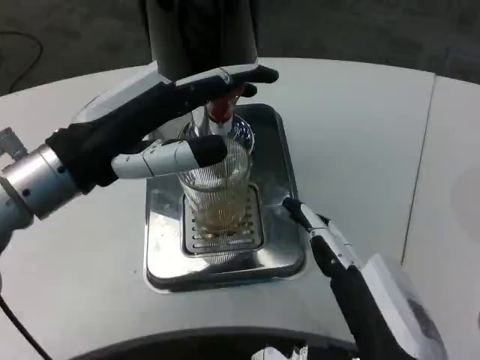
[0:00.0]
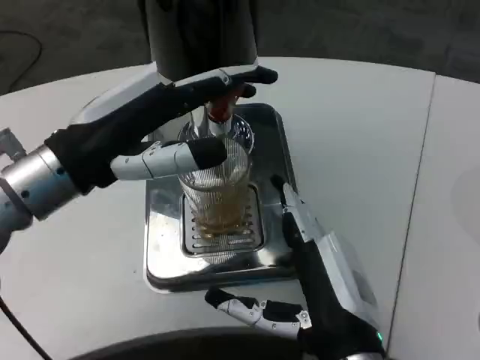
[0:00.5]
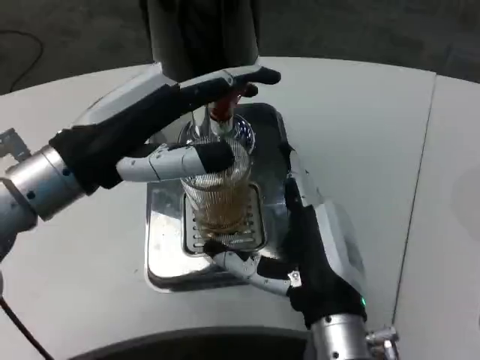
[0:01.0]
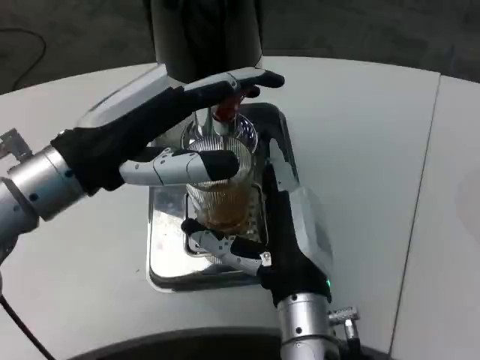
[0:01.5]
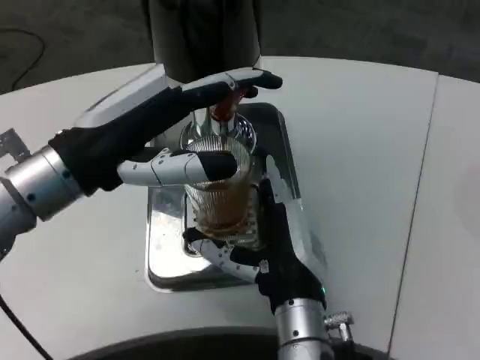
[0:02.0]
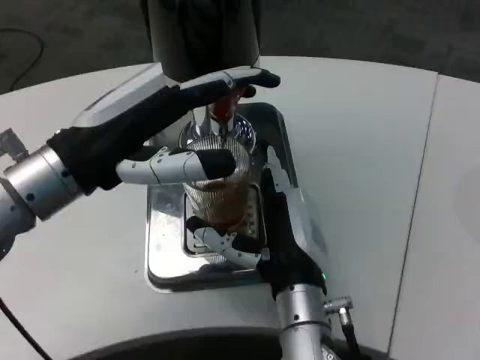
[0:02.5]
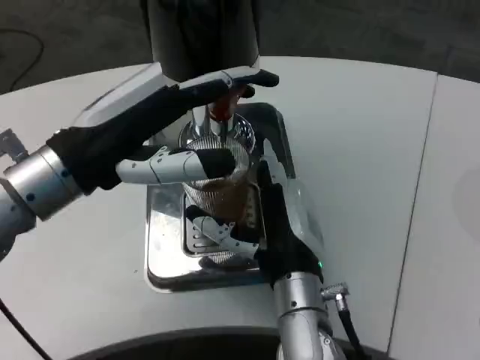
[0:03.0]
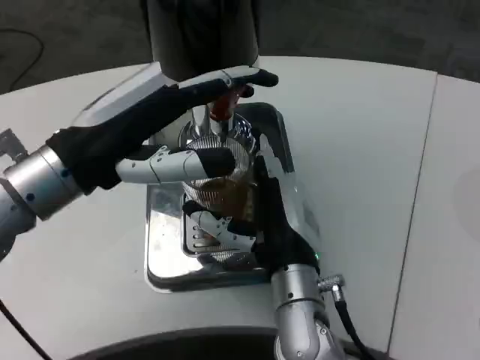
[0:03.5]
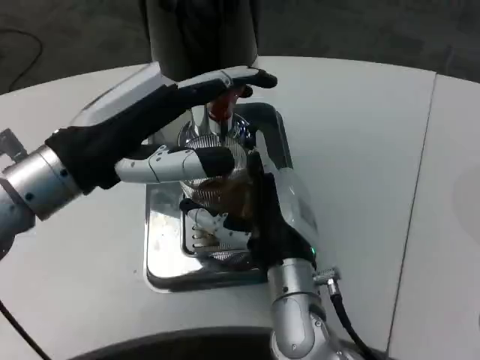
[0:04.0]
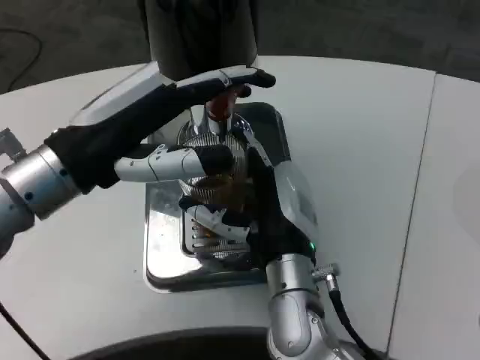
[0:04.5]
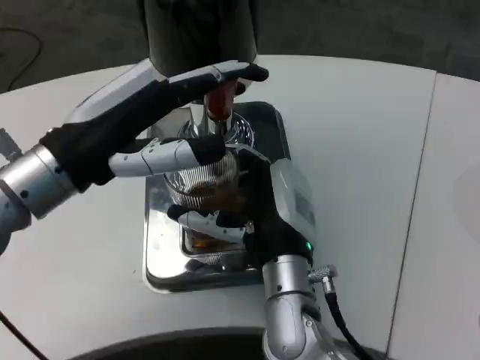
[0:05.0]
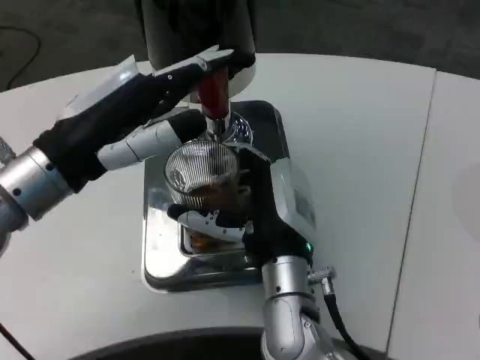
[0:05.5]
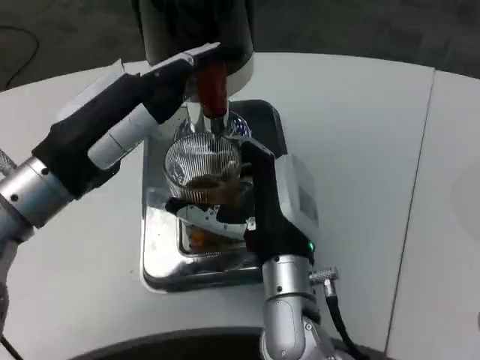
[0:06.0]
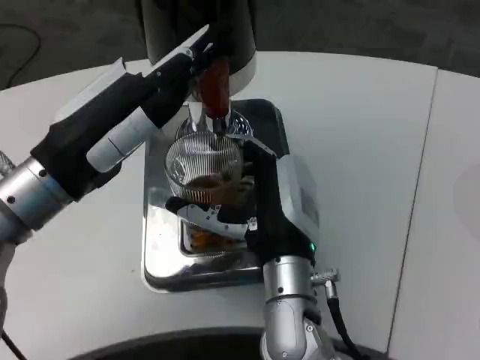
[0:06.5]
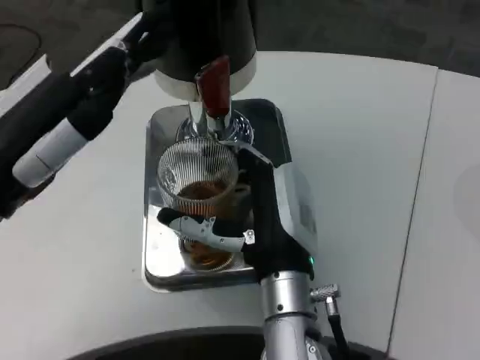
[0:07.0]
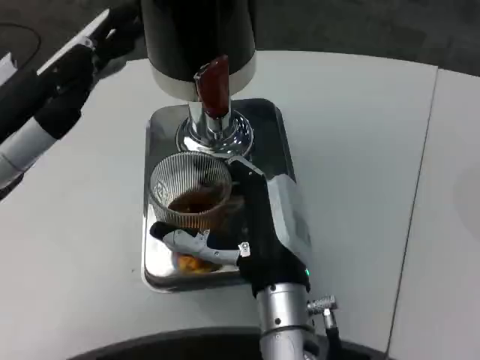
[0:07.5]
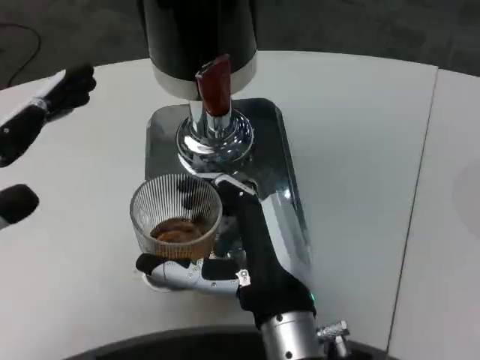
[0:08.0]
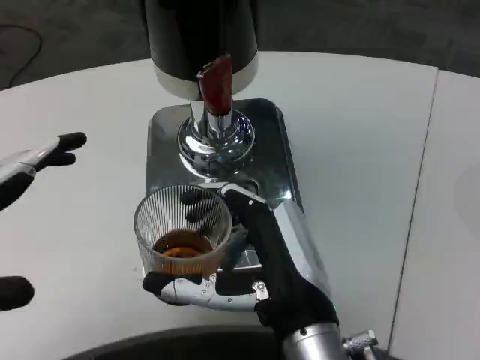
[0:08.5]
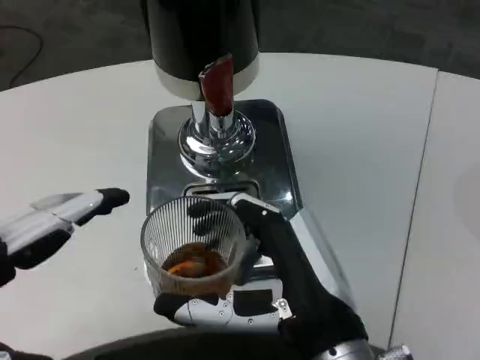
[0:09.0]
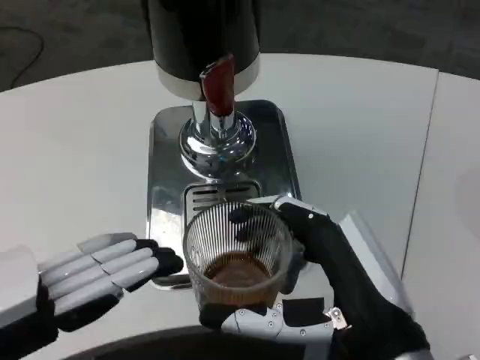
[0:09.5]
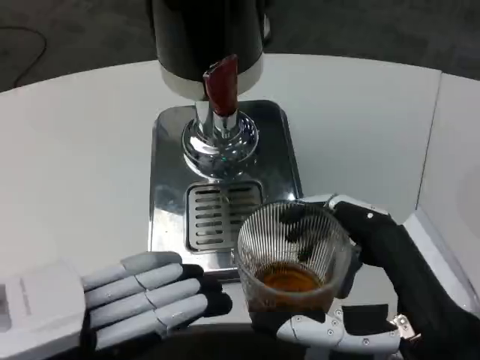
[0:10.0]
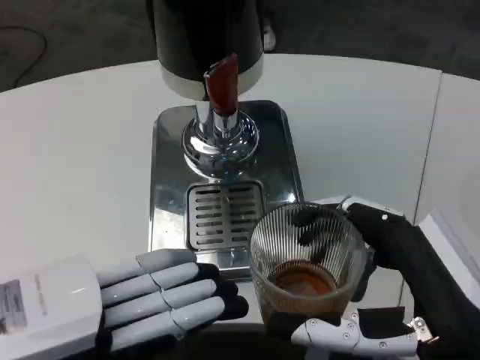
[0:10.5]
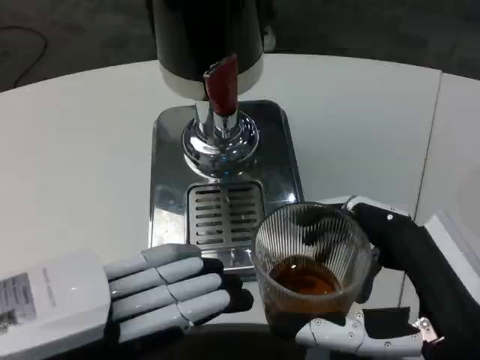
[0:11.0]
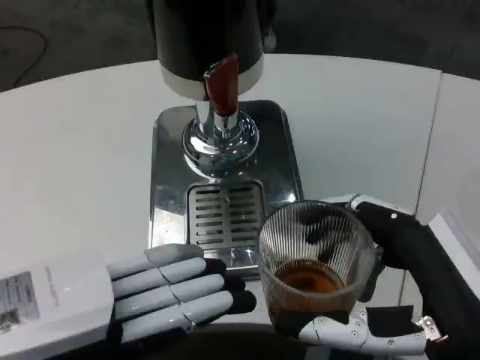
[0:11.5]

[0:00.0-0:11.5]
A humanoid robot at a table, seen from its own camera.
Task of the whole recording: Grasp the cup under the faucet to collect the drink, then remove the cup.
0:00.0 to 0:02.0: The right hand shifts approximately 15 cm forward and to the left.
0:02.0 to 0:04.0: The hands stay close to where they were, moving slightly.
0:06.0 to 0:07.5: The left hand goes some 10 cm backward and to the left.
0:07.5 to 0:09.5: The left hand moves backward, some 10 cm; the right hand is displaced backward and to the right by about 15 cm.
0:09.5 to 0:11.5: The right hand shifts by roughly 5 cm.

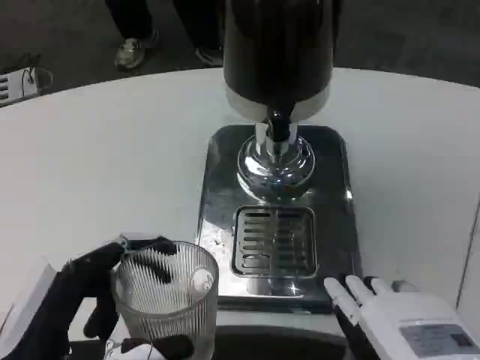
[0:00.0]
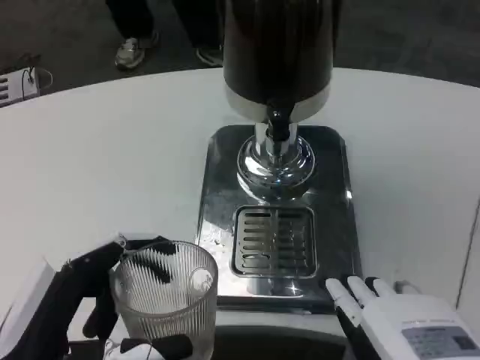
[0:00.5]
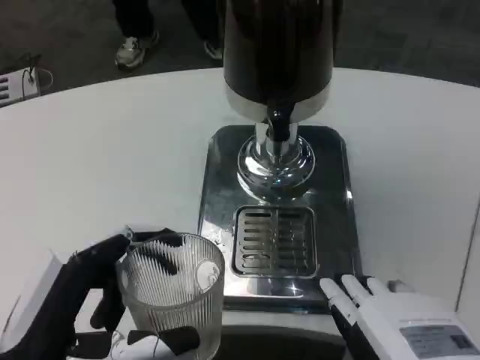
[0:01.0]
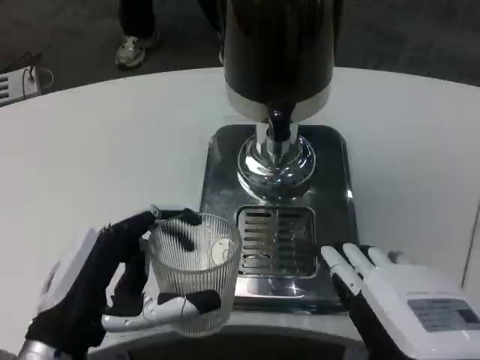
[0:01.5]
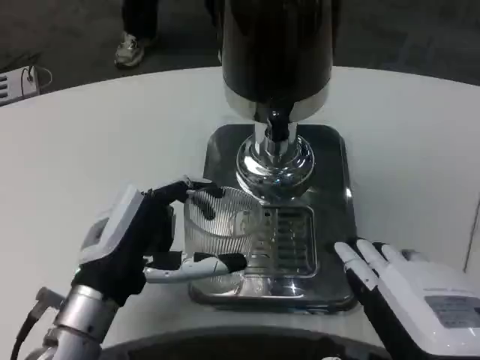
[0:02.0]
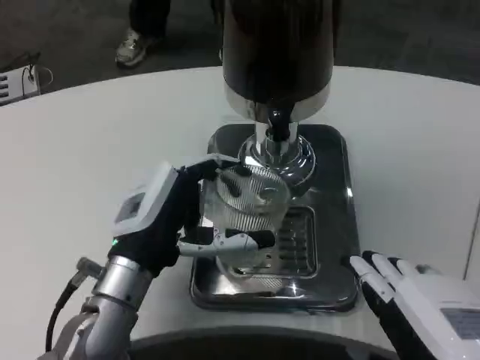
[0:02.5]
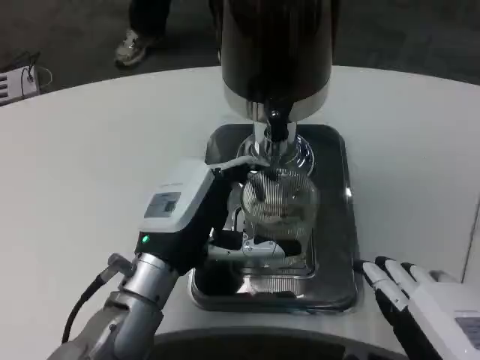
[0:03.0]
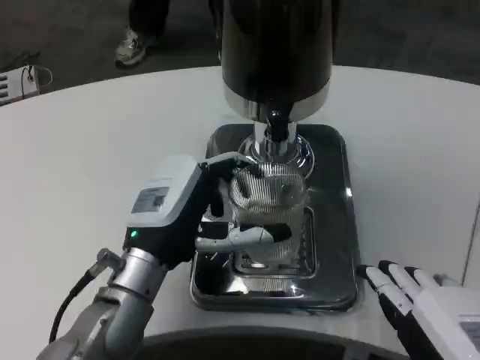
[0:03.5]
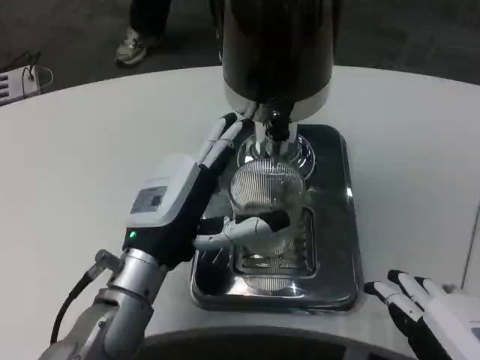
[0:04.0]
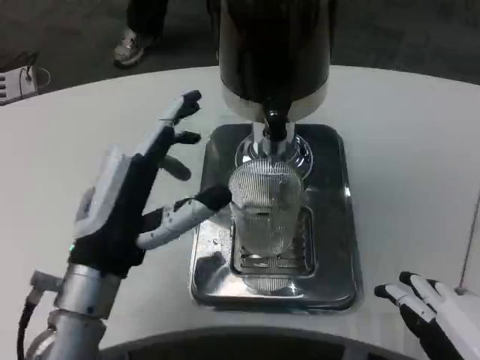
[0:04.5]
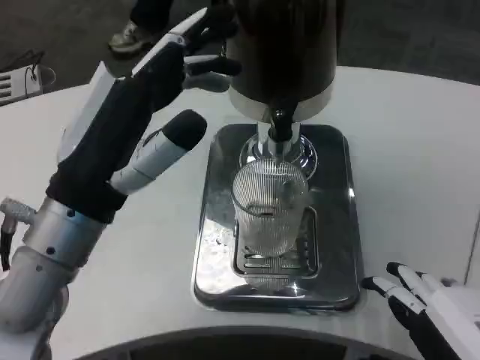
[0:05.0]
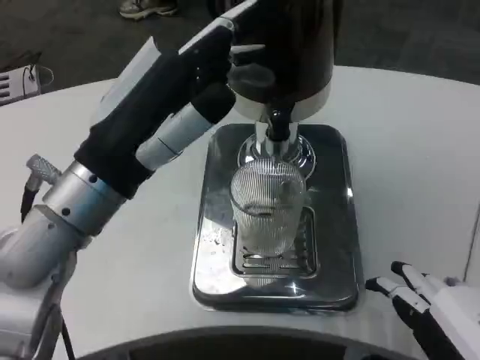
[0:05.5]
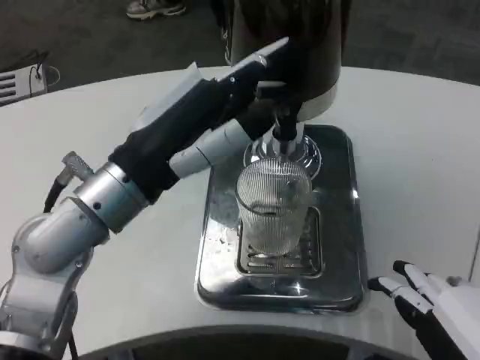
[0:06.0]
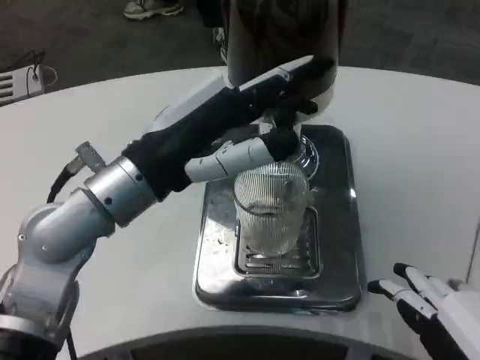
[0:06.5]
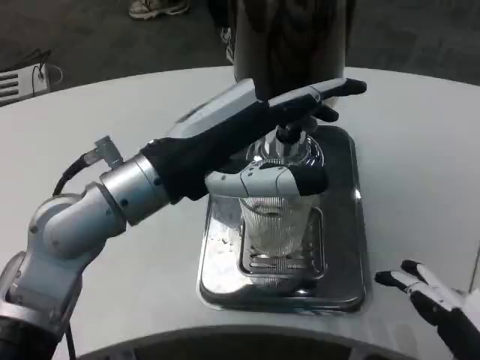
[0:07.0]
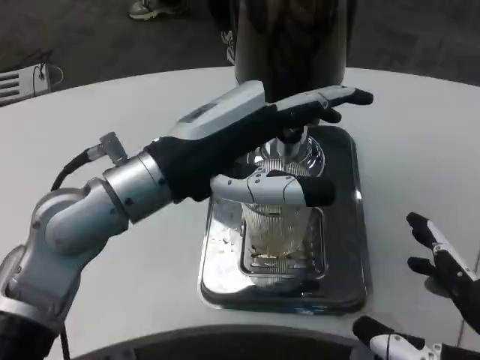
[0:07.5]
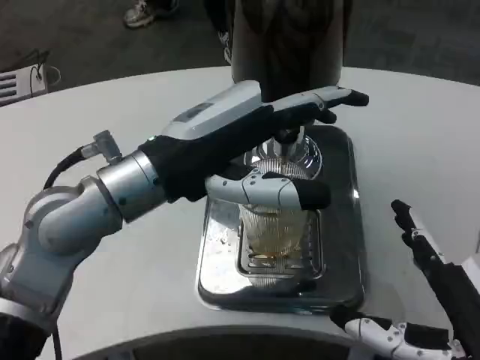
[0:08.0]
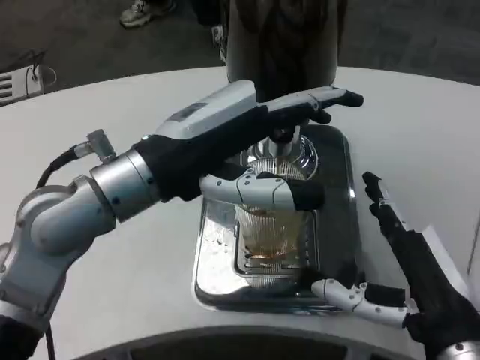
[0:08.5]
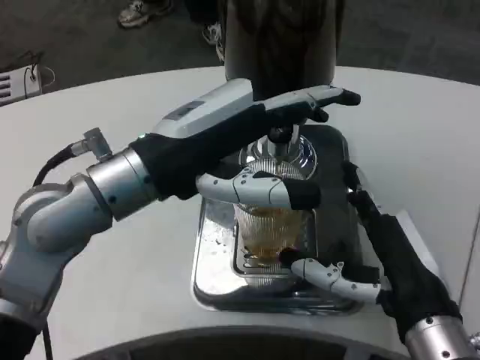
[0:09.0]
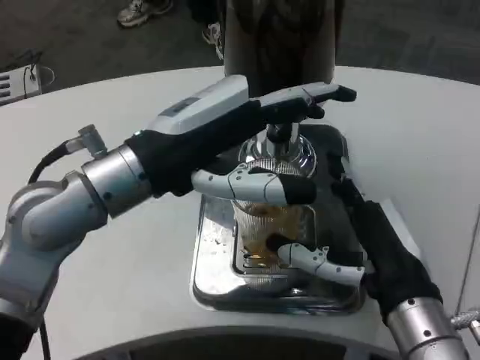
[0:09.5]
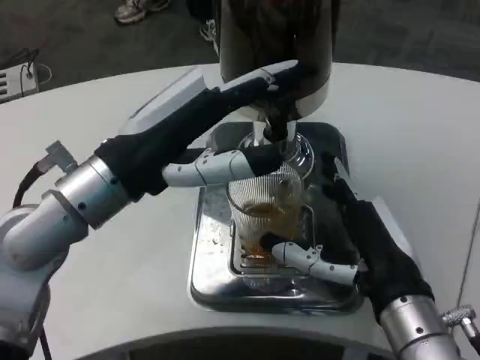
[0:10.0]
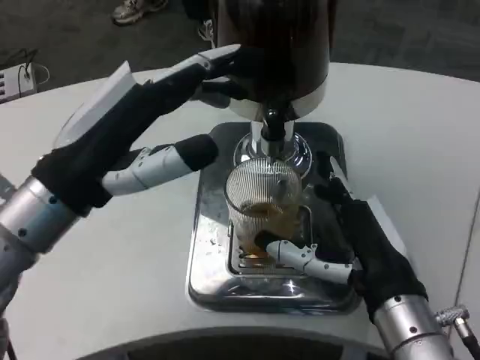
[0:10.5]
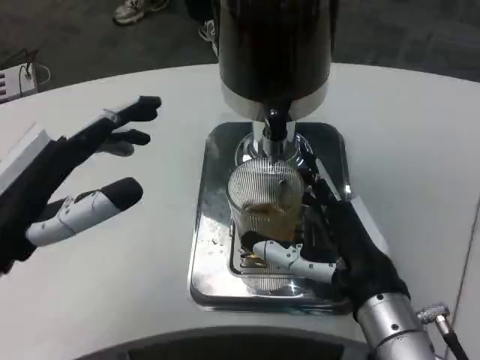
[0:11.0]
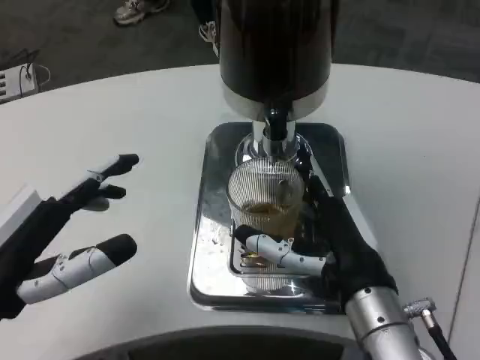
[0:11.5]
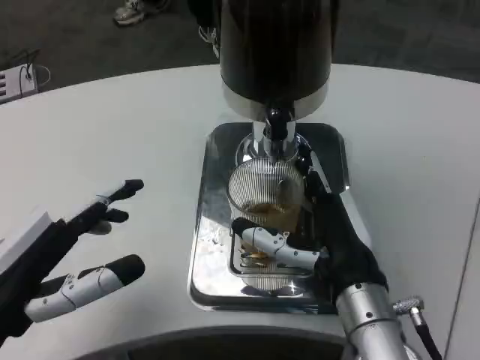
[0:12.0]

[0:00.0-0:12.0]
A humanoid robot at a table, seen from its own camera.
Task of the whole recording: Grasp the cup under the faucet to collect the drink, then remove the cup.
0:00.0 to 0:02.0: The left hand goes approximately 10 cm forward.
0:02.0 to 0:04.0: The left hand shifts by roughly 5 cm.
0:04.0 to 0:06.0: The left hand shifts approximately 10 cm upward.
0:06.0 to 0:08.0: The right hand shifts by some 5 cm.
0:08.0 to 0:10.0: The right hand travels forward by roughly 10 cm.
0:10.0 to 0:12.0: The left hand is displaced backward, downward and to the left by some 15 cm.

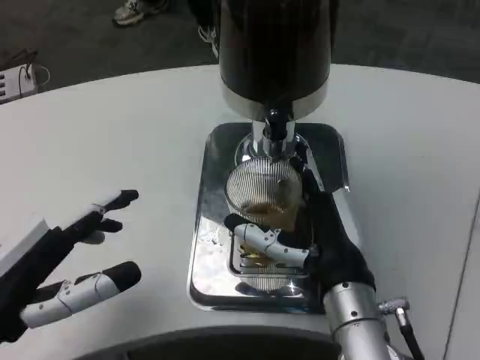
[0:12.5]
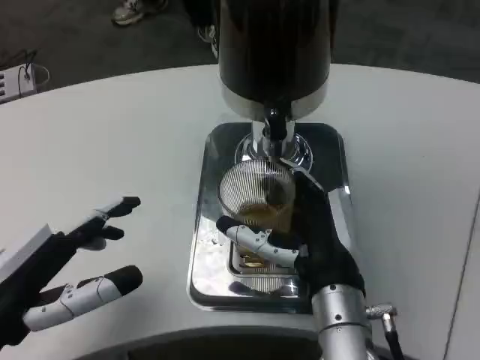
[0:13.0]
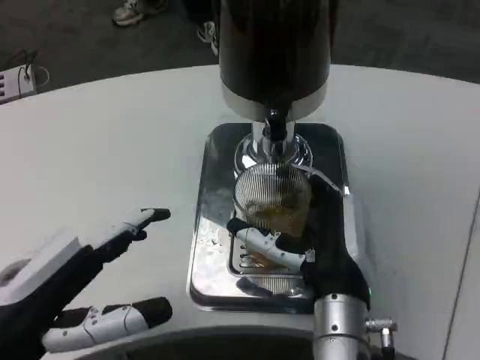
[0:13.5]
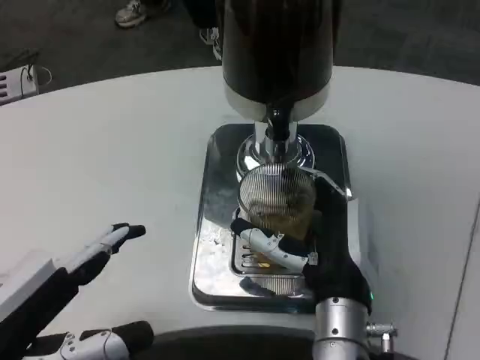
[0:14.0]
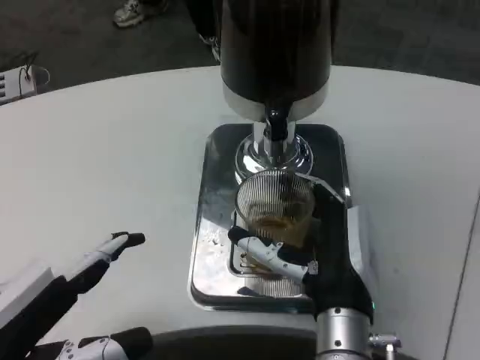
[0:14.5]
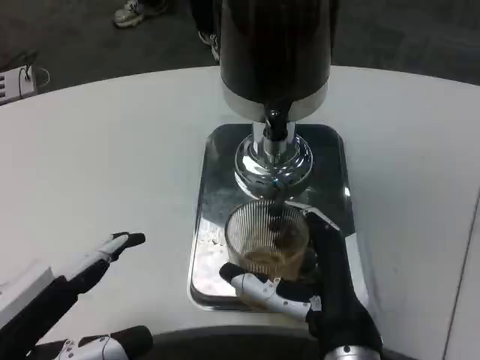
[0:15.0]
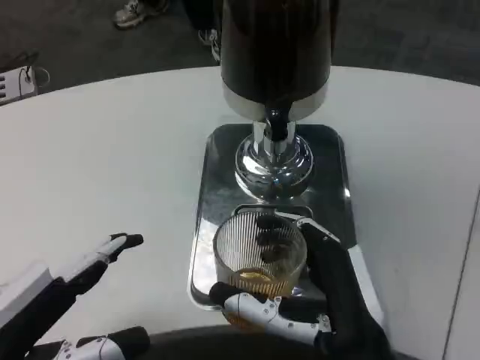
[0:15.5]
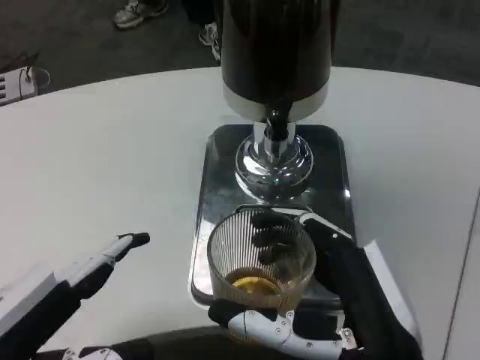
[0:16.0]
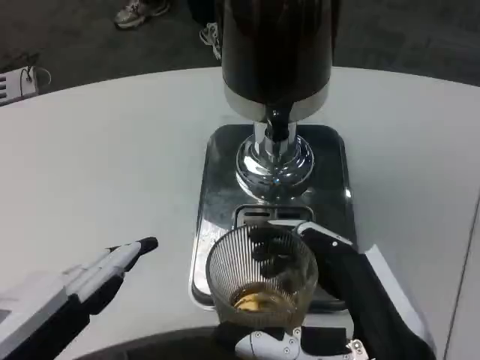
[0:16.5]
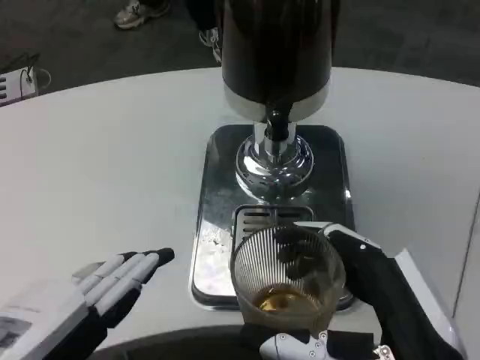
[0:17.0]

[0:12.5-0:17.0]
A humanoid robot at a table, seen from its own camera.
Task of the whole recording: Grasp the cup under the faucet to collect the drink, then remove the cup.
0:12.5 to 0:14.5: The left hand travels backward by some 5 cm.
0:14.5 to 0:17.0: The right hand heads backward and to the right, covering some 15 cm.
